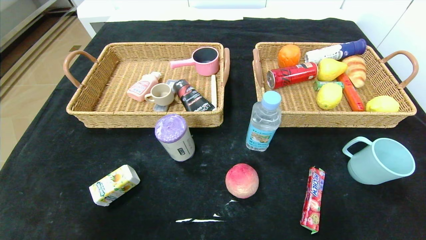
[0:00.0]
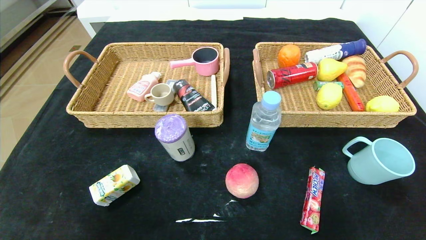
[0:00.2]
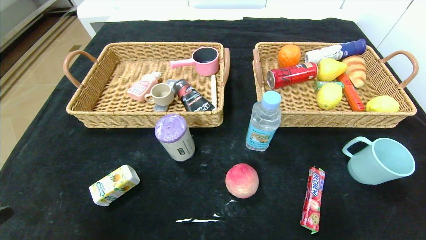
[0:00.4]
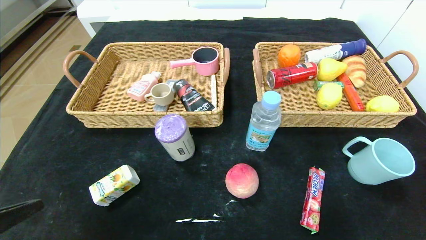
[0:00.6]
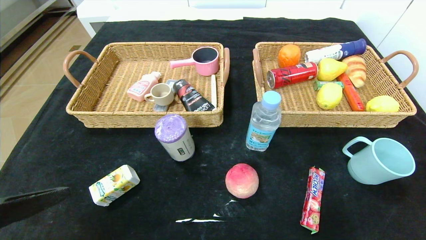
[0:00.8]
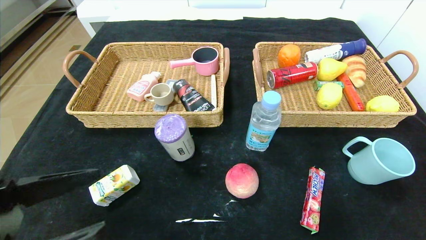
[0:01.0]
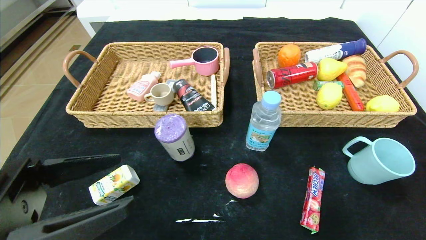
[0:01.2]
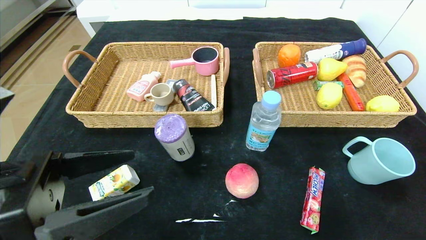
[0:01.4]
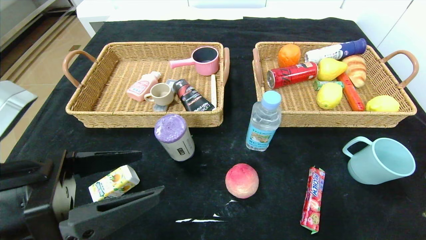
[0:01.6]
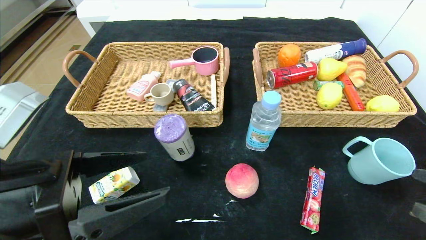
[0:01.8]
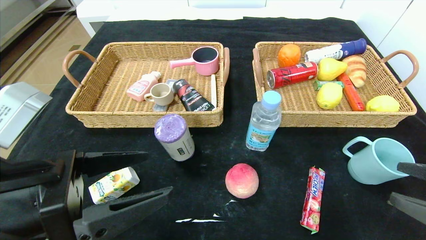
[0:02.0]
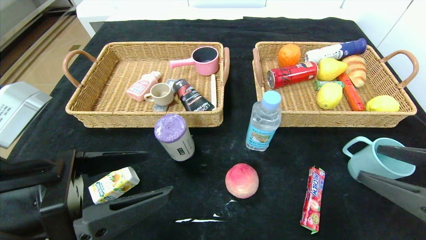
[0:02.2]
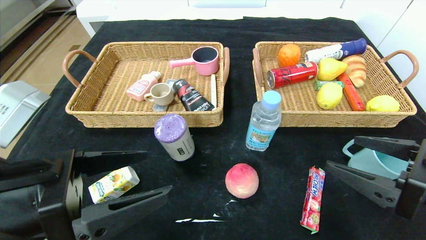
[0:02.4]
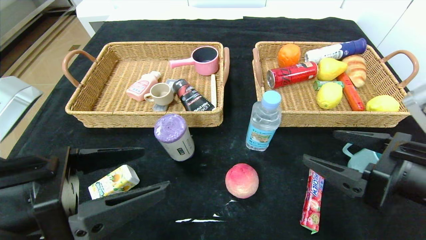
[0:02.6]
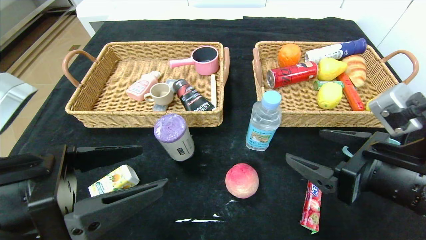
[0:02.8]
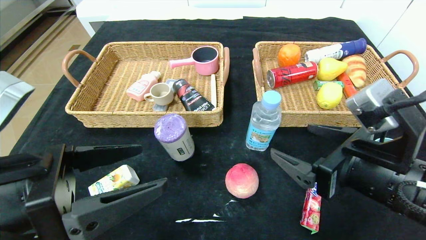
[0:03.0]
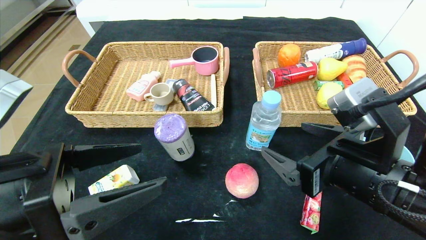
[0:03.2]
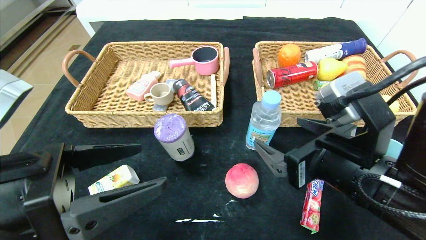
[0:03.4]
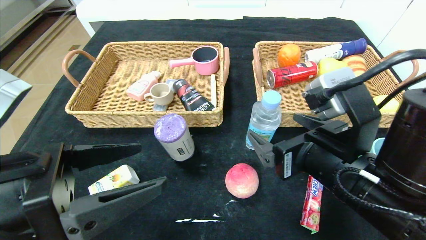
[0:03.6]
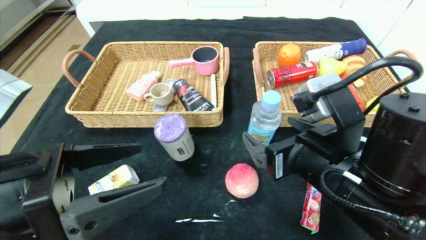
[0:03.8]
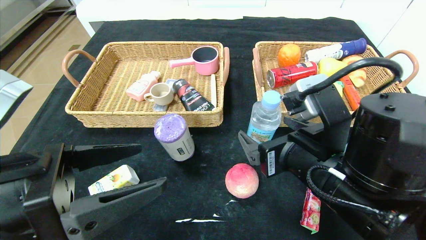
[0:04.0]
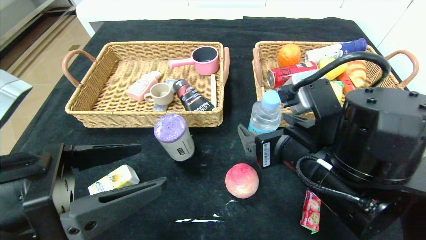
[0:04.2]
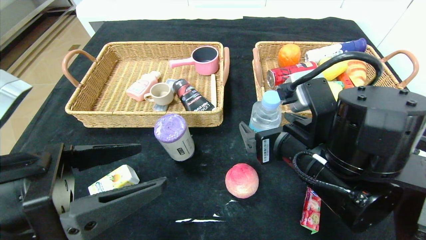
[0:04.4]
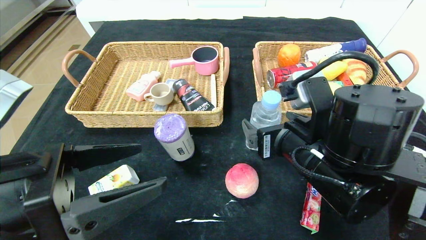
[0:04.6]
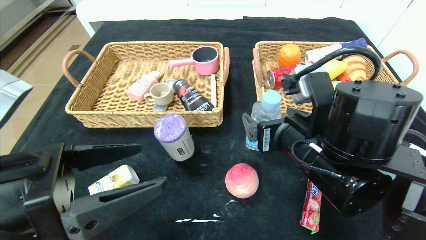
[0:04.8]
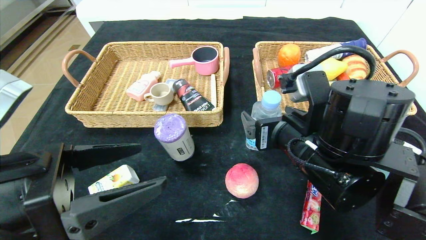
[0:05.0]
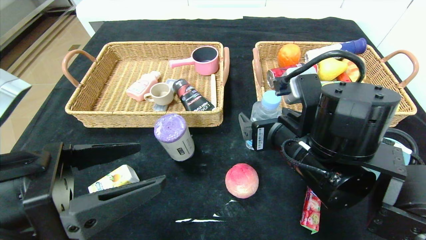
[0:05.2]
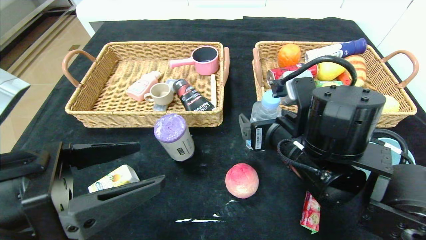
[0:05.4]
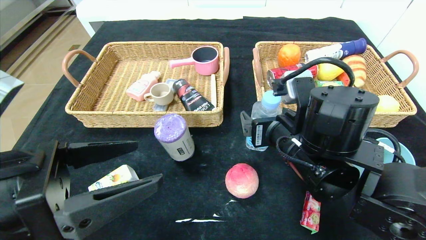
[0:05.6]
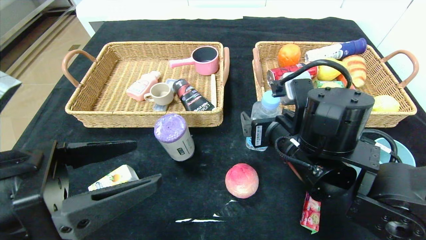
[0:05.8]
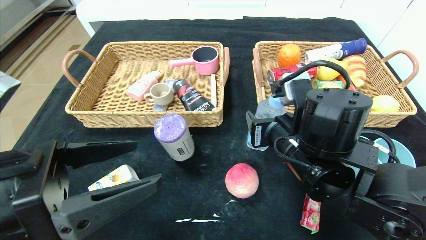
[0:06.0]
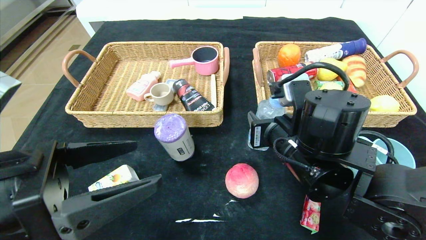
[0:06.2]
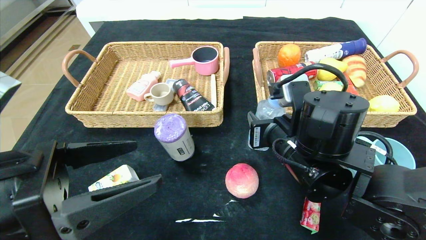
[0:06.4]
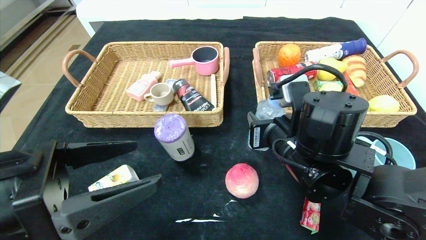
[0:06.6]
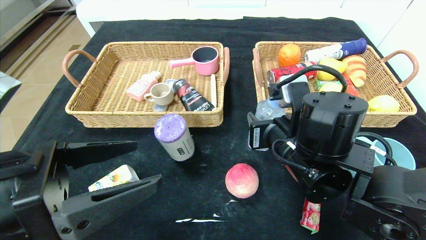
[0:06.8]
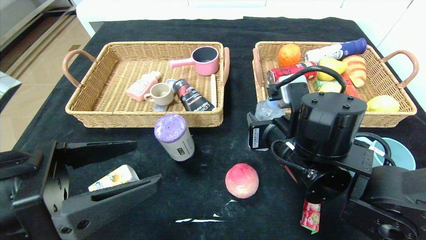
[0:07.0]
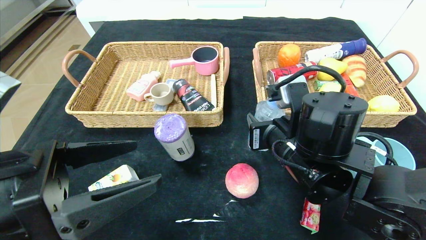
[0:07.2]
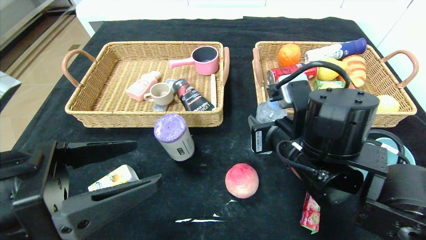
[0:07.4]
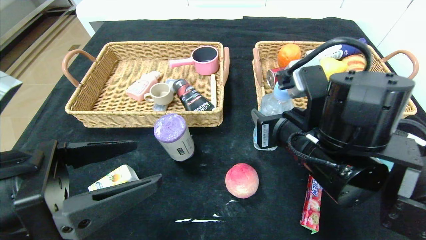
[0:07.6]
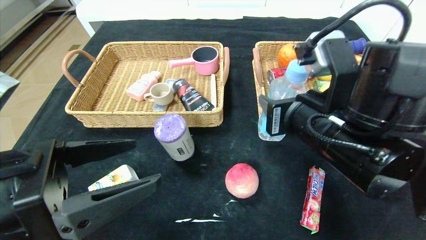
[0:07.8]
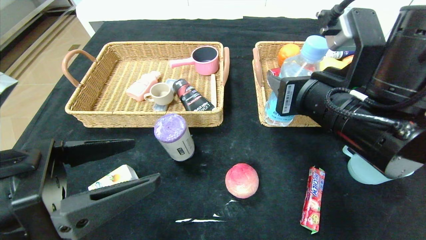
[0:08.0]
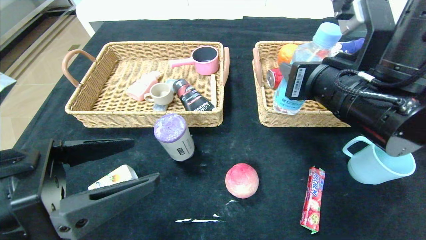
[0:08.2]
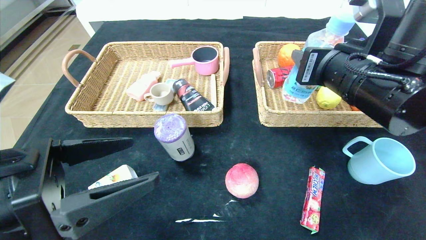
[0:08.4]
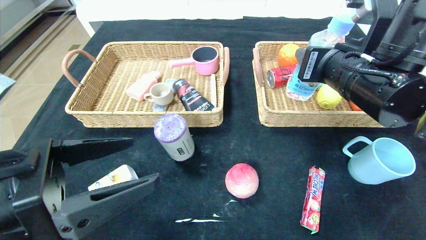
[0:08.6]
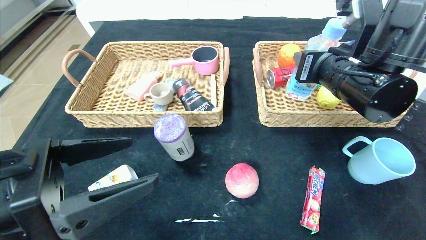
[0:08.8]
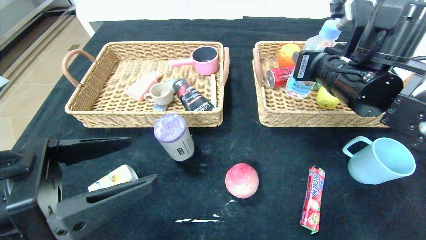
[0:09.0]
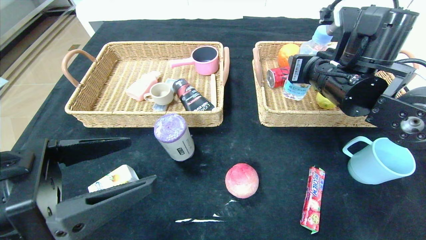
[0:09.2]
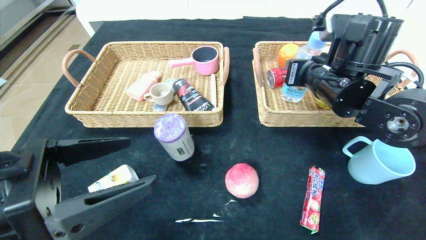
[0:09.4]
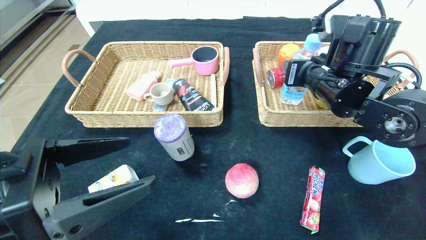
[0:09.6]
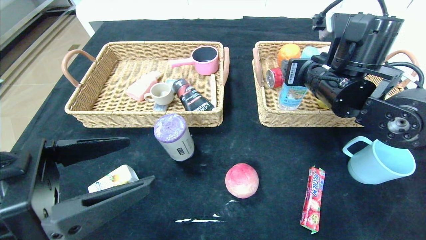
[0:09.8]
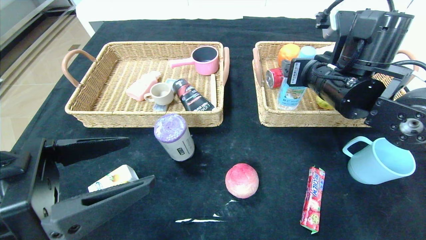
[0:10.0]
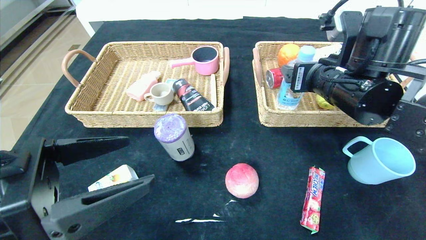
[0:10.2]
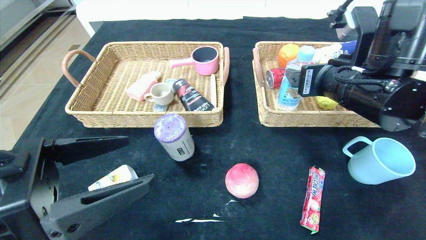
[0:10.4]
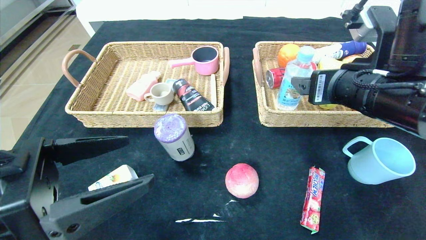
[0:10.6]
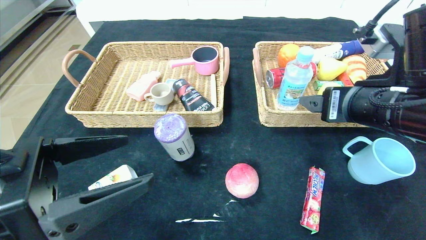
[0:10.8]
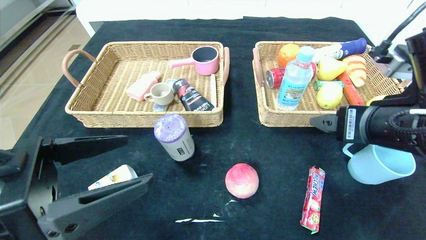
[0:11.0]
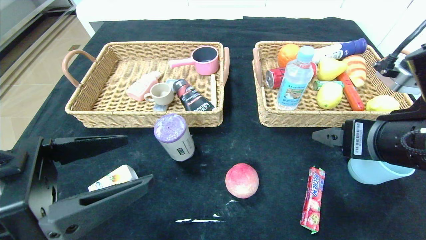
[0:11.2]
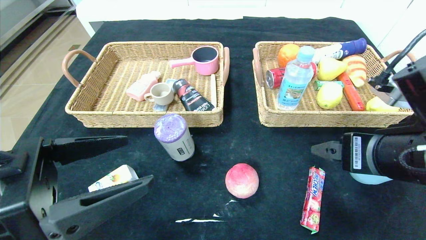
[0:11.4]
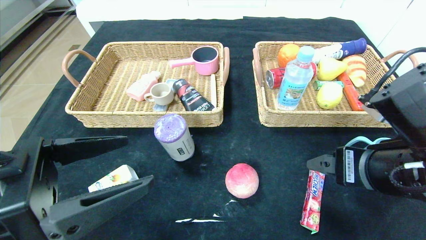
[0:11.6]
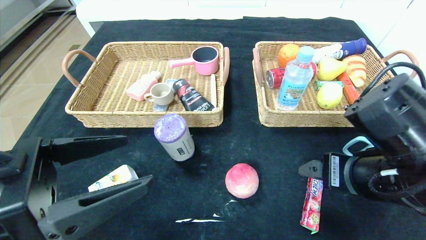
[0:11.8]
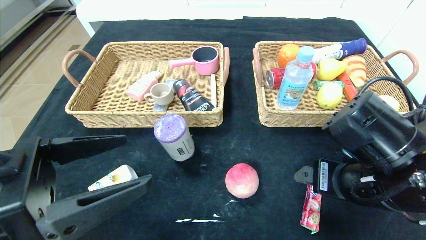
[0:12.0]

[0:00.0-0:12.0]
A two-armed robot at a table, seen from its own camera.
Step, 0:00.0 to 0:11.4: Pick up the soda water and put it in the right basket.
0:00.0 to 0:01.6: The left gripper shifts approximately 20 cm forward, to the right and upward. Meanwhile the right gripper shifts approximately 10 cm forward and upward.
0:01.6 to 0:03.0: The right gripper shifts some 15 cm to the left and forward.
0:03.0 to 0:04.4: The right gripper goes about 5 cm to the left.
0:04.4 to 0:07.6: The grippers move only a little.
0:07.6 to 0:09.0: The right gripper shifts roughly 10 cm forward, upward and to the right.
0:09.0 to 0:10.4: The right gripper opens.
0:10.4 to 0:12.0: The right gripper shifts roughly 10 cm backward and downward.

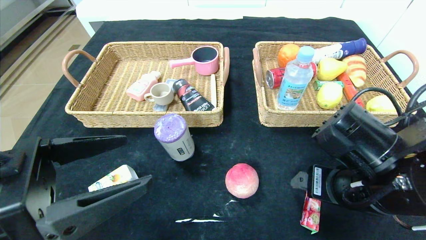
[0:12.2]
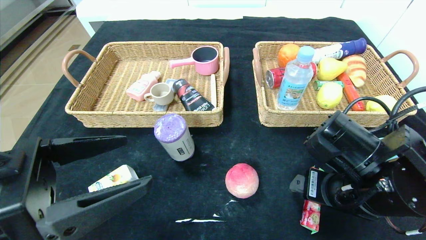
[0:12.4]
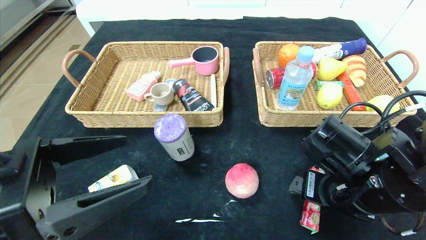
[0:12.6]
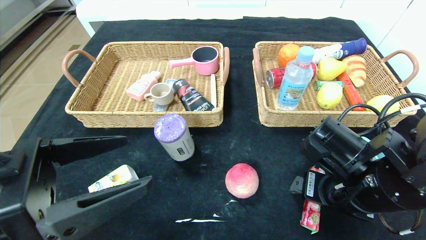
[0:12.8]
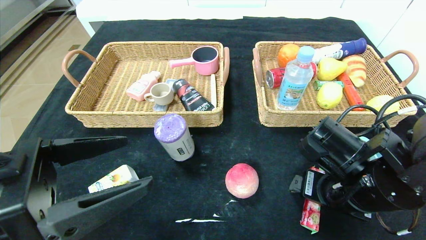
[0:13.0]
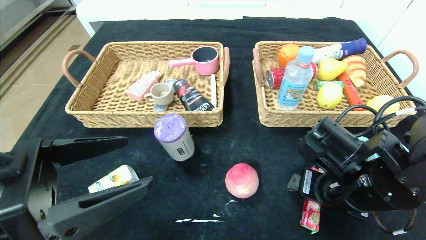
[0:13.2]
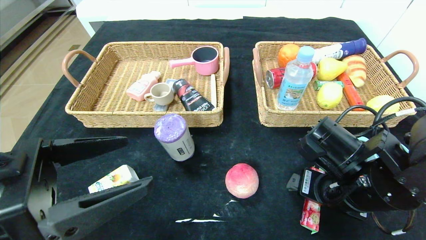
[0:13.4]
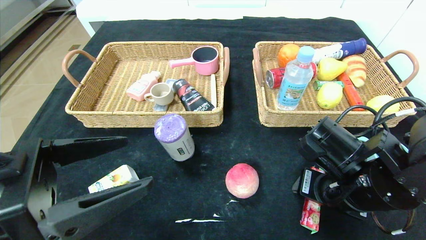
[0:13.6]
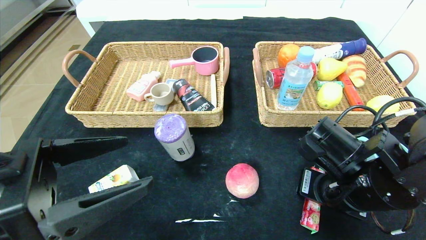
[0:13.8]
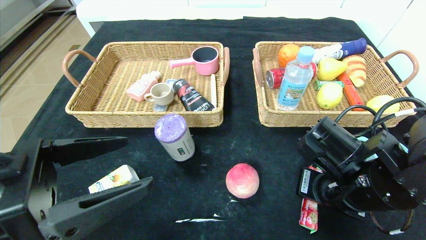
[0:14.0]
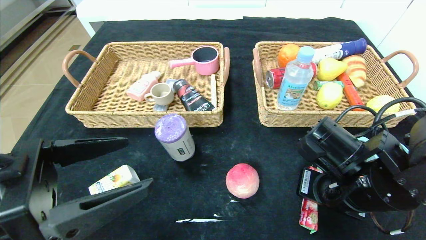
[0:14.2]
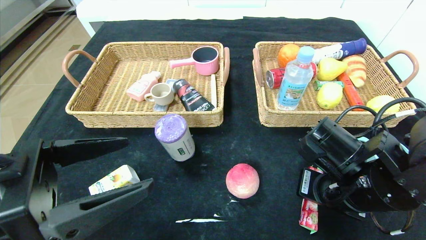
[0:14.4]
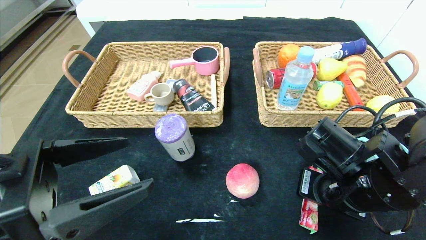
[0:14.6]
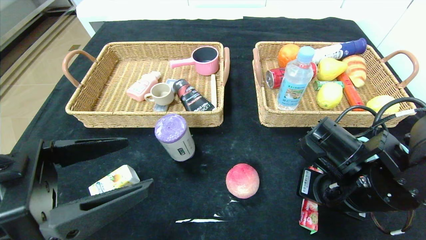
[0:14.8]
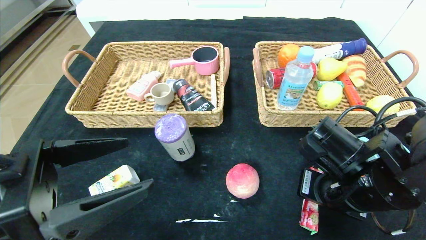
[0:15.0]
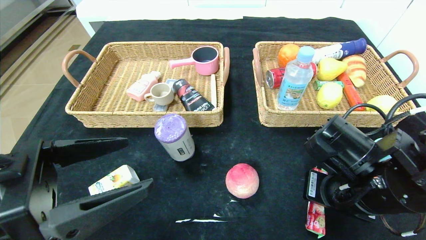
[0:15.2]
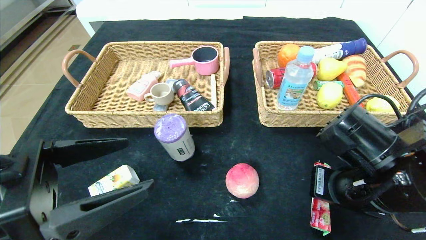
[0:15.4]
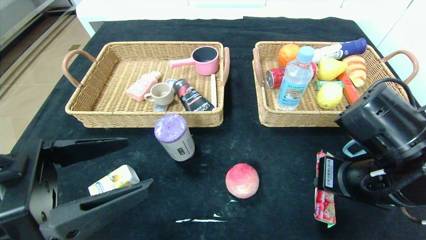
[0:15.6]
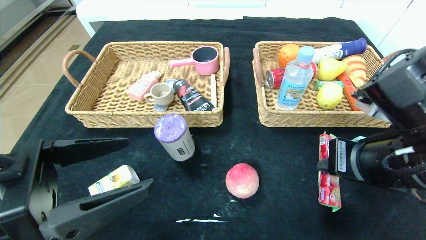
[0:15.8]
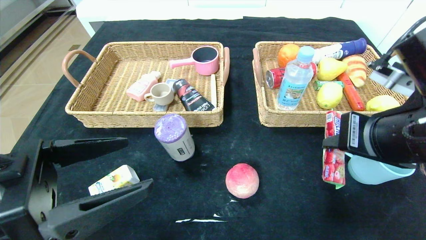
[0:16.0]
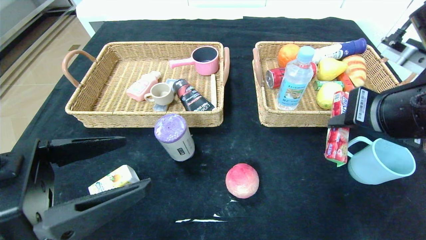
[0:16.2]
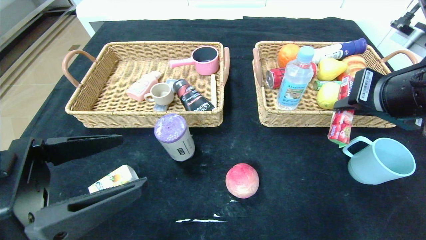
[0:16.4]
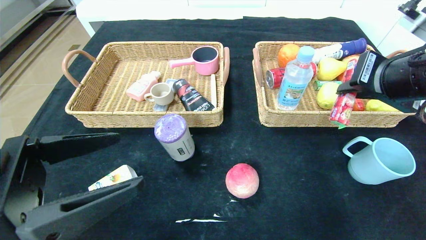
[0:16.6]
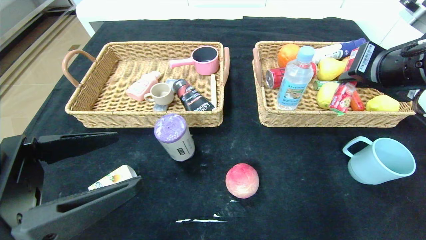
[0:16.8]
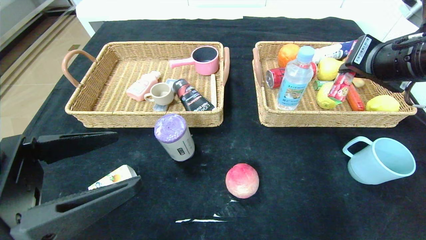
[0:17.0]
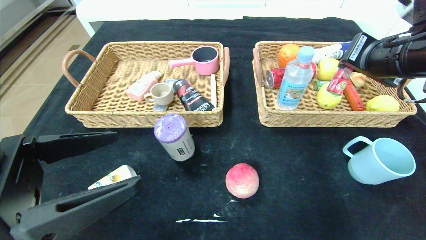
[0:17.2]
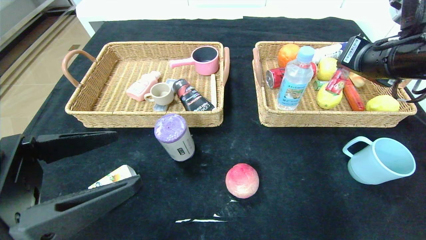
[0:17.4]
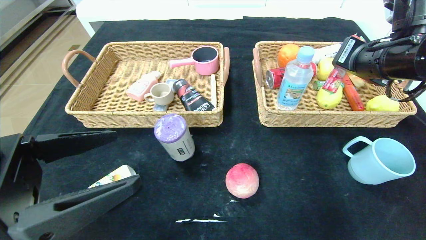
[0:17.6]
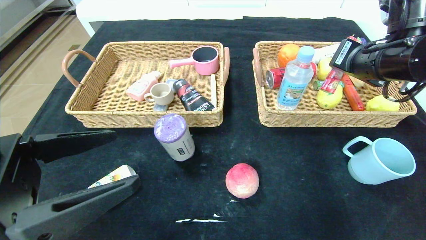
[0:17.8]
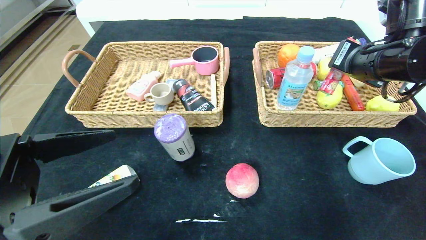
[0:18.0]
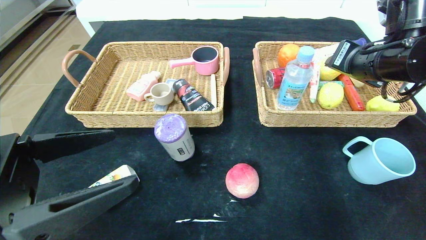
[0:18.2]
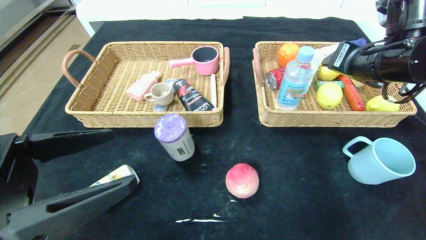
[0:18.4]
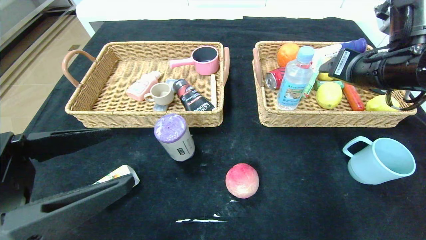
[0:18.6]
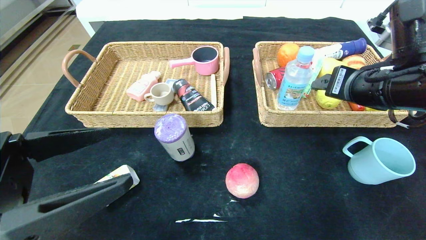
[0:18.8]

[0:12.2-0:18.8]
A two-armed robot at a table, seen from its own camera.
0:12.2 to 0:13.8: The right gripper closes its fingers.
0:13.8 to 0:15.4: The grippers make only small movements.
0:15.4 to 0:17.2: The right gripper moves upward, forward and to the right, roughly 15 cm.
0:17.2 to 0:18.8: The right gripper changes place by about 5 cm, and opens.
